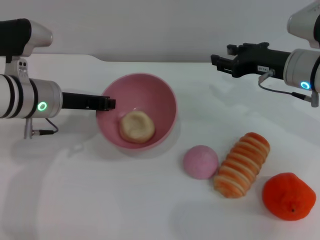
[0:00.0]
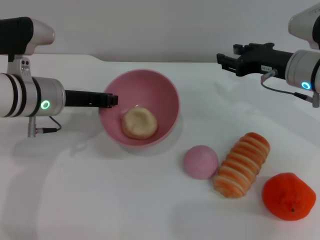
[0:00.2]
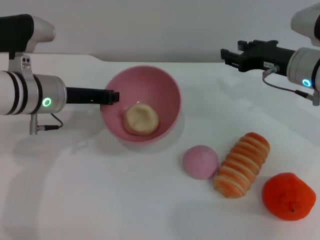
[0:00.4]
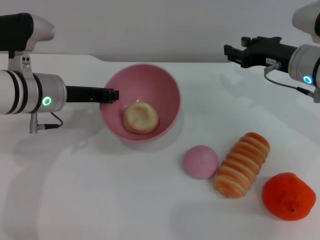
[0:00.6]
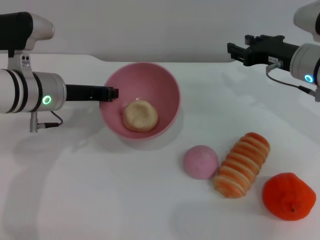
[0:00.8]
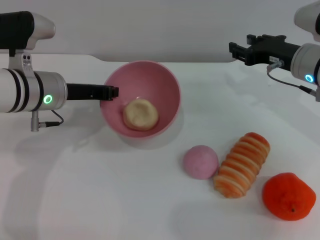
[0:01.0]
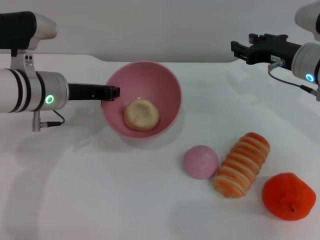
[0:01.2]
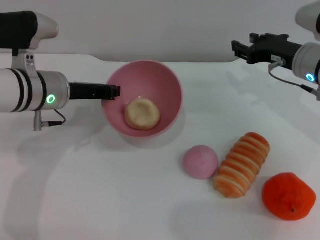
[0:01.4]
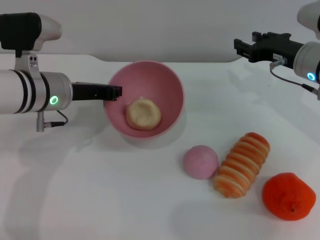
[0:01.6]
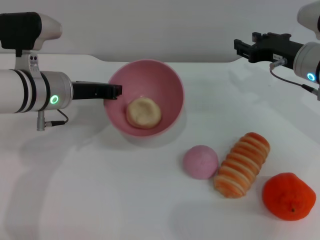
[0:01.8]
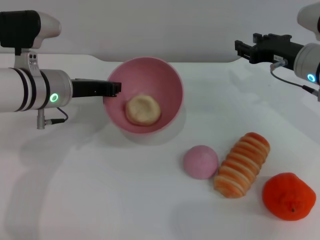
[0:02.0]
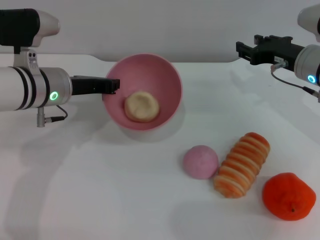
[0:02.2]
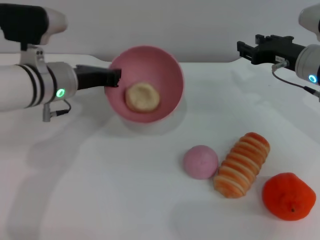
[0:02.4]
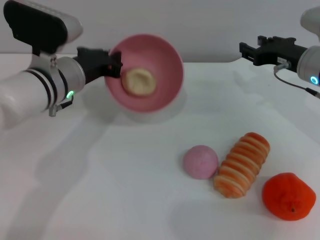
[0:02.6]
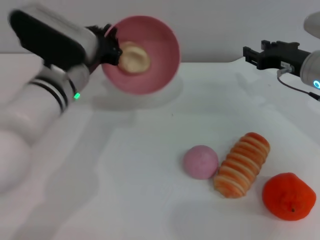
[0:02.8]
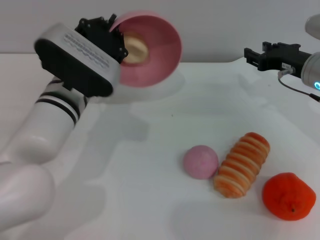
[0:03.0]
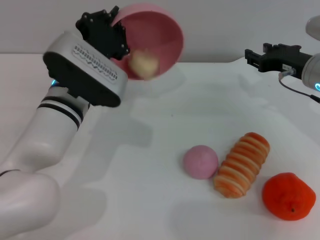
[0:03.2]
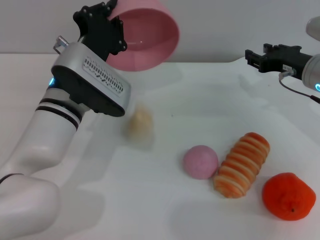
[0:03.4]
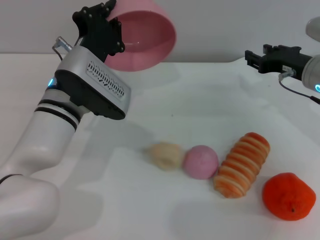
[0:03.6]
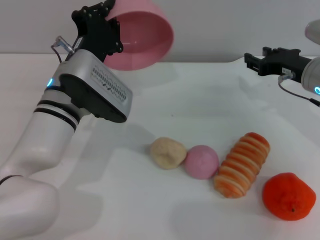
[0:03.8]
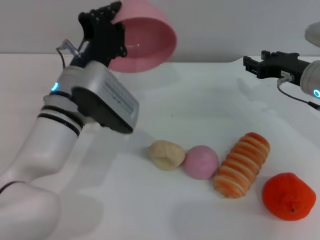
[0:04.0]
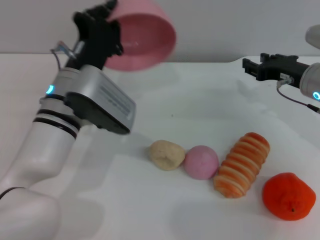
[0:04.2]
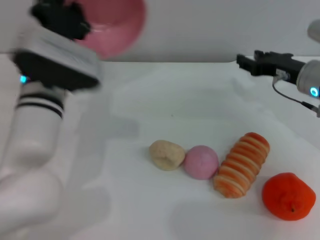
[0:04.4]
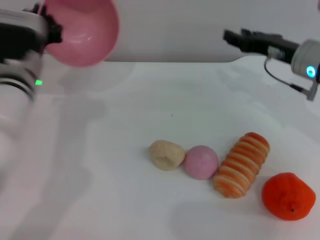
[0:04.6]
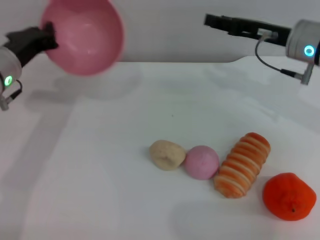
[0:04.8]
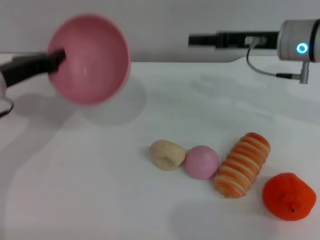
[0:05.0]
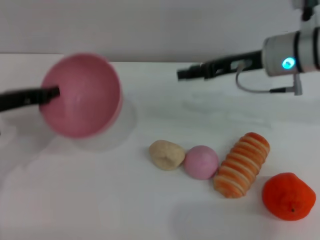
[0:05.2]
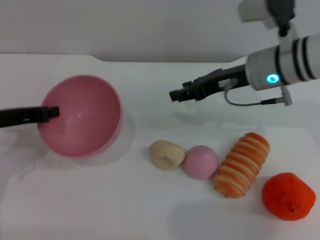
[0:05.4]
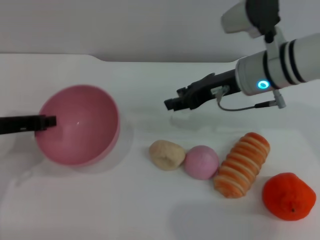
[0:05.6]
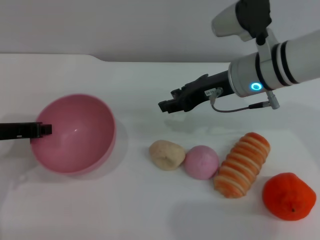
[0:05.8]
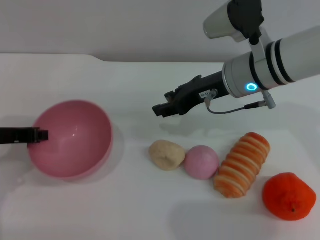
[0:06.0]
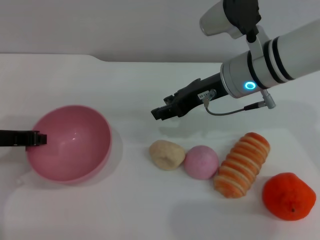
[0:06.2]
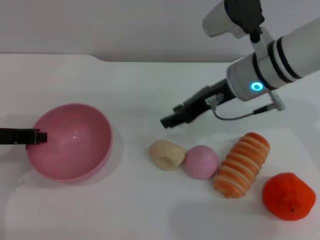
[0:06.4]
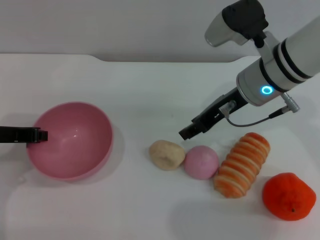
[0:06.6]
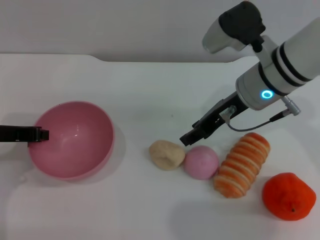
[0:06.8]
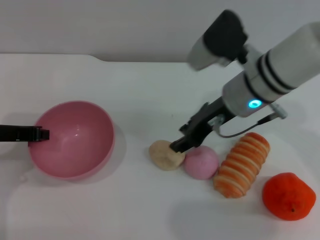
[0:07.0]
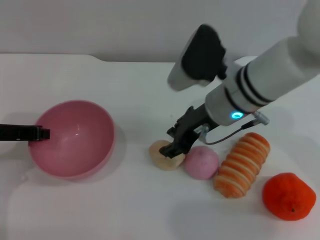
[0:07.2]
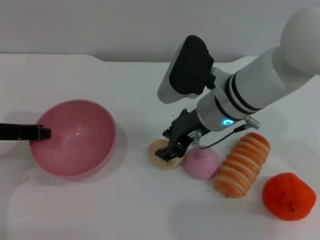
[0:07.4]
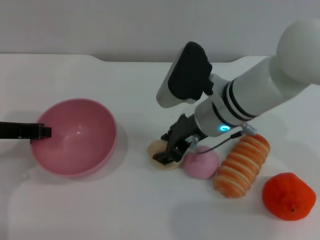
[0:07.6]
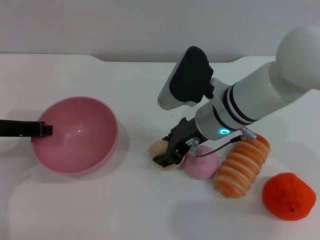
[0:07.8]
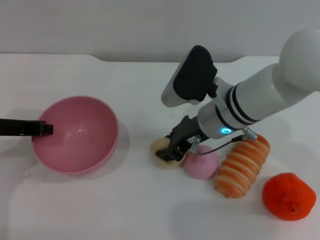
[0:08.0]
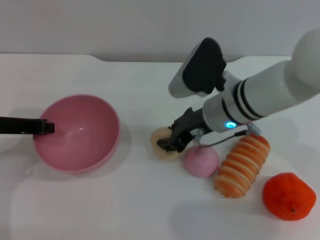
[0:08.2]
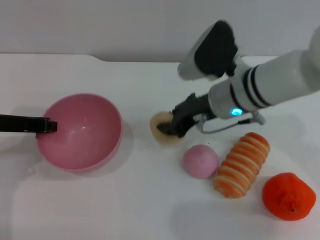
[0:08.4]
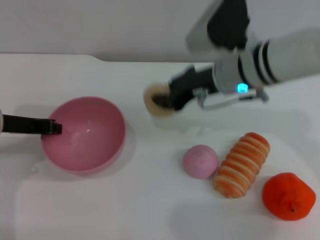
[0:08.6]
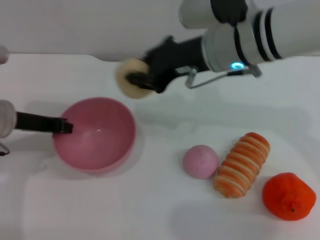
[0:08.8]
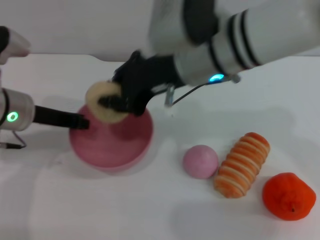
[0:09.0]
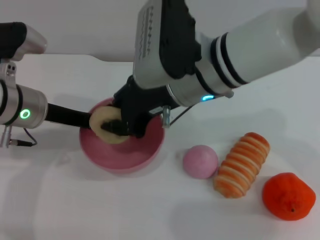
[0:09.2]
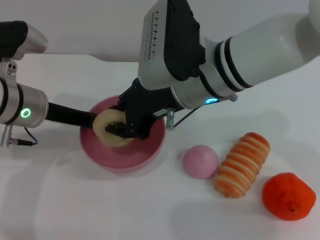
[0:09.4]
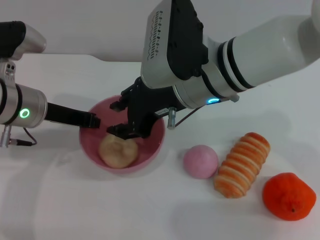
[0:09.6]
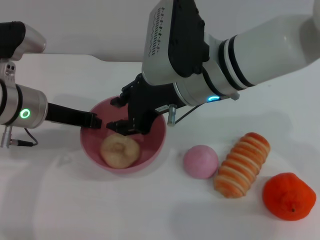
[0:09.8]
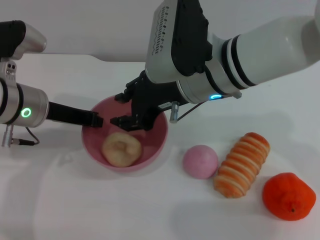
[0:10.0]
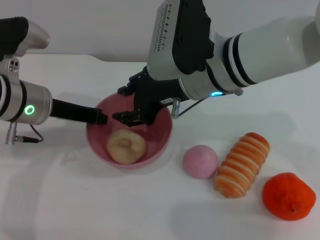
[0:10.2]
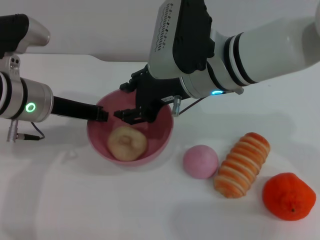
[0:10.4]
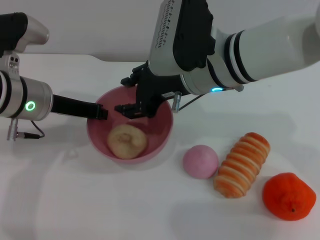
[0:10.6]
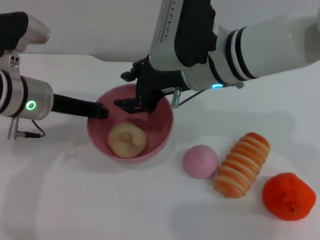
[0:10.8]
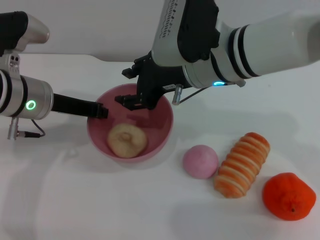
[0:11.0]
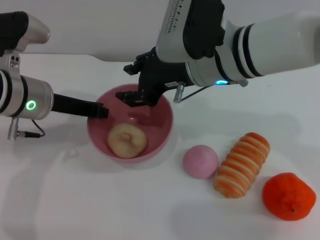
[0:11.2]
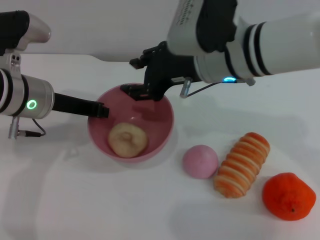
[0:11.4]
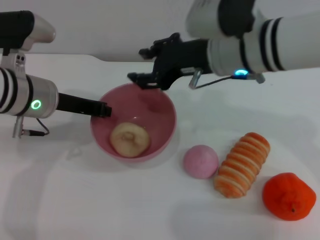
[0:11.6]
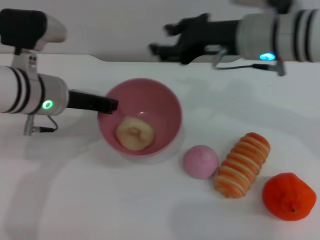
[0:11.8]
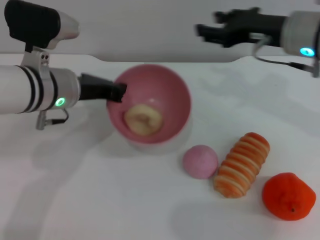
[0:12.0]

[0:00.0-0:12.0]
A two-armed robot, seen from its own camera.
Task of the whole recording: put the egg yolk pastry into the pink bowl and pour it out repeatedly.
Step, 0:00.0 to 0:03.6: Pour the egg yolk pastry out of bowl.
Step, 0:03.8 to 0:08.4: Pick up the egg yolk pastry with the right gripper.
Step, 0:08.6 to 0:10.2: Place the egg yolk pastry into the bowl.
0:00.0 to 0:01.6: The grippers stay close to where they were, moving slightly.
0:01.6 to 0:03.0: The left gripper goes roughly 5 cm to the right.
0:04.4 to 0:06.0: The left gripper moves to the left, about 15 cm, while the right gripper travels to the left and upward by approximately 15 cm.
0:06.0 to 0:07.6: The right gripper moves roughly 5 cm.
0:07.6 to 0:09.0: The right gripper goes about 10 cm upward, and closes up; the left gripper moves to the right, roughly 5 cm.
0:09.0 to 0:10.4: The right gripper opens up.
0:10.4 to 0:12.0: The right gripper travels to the right by some 15 cm.

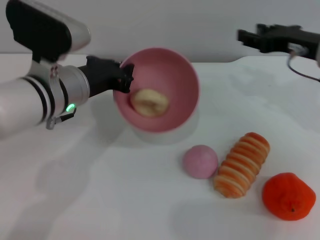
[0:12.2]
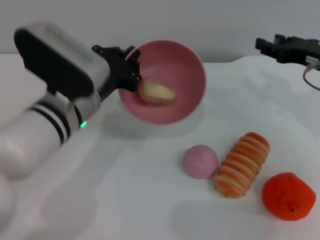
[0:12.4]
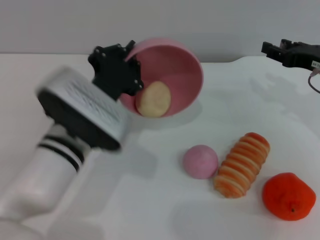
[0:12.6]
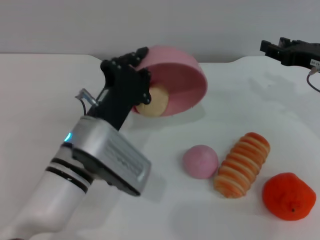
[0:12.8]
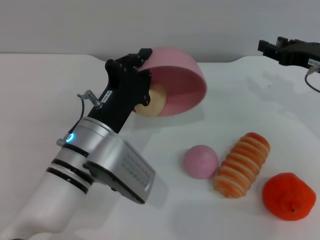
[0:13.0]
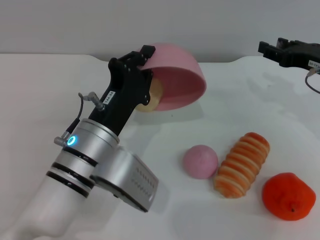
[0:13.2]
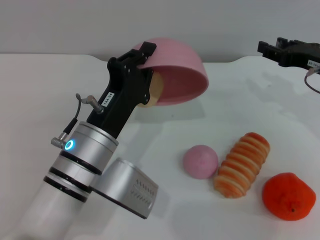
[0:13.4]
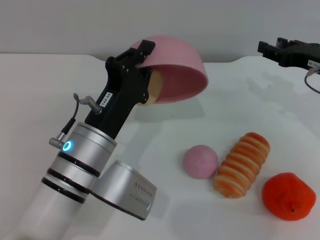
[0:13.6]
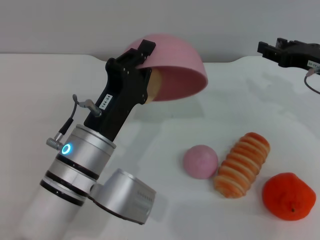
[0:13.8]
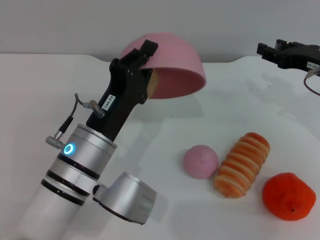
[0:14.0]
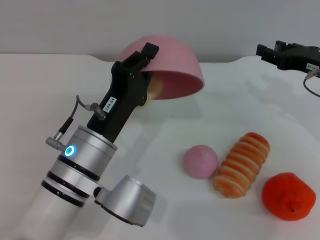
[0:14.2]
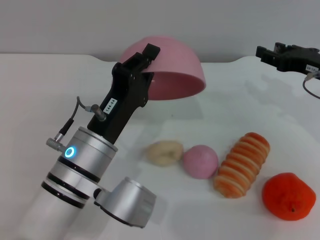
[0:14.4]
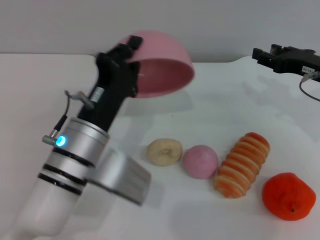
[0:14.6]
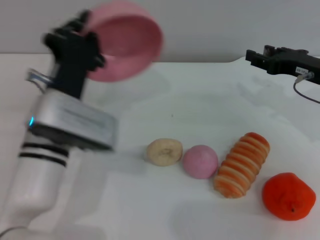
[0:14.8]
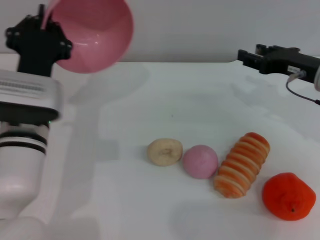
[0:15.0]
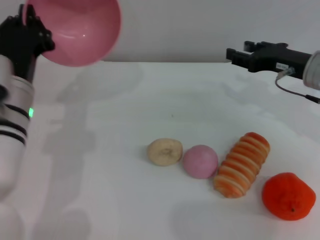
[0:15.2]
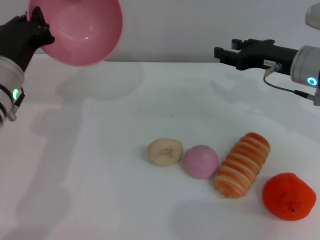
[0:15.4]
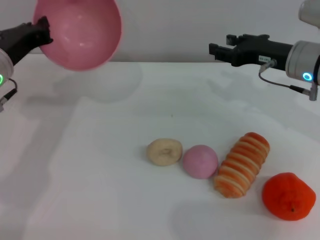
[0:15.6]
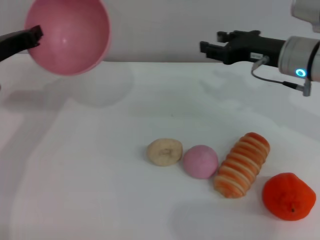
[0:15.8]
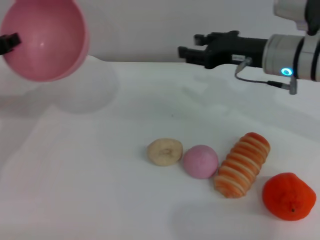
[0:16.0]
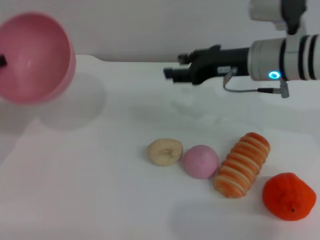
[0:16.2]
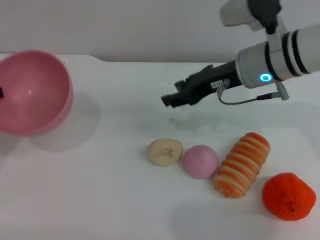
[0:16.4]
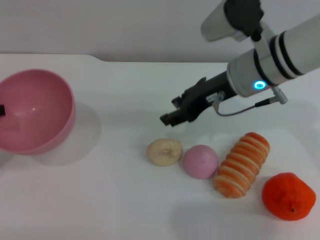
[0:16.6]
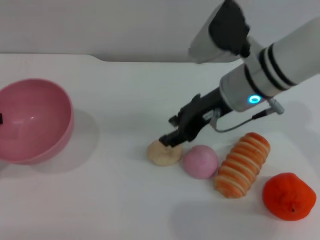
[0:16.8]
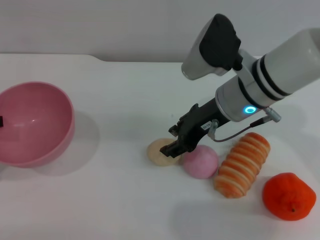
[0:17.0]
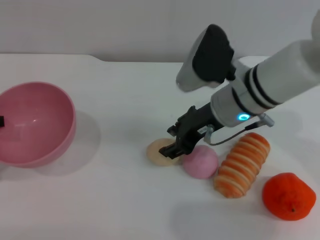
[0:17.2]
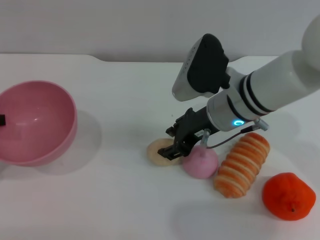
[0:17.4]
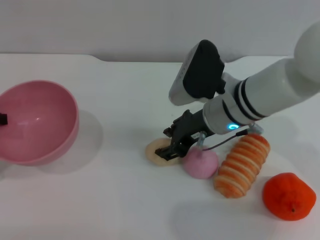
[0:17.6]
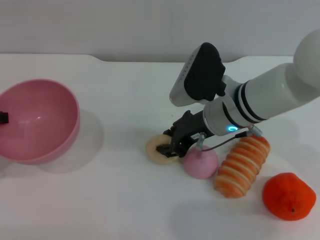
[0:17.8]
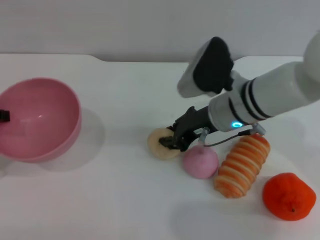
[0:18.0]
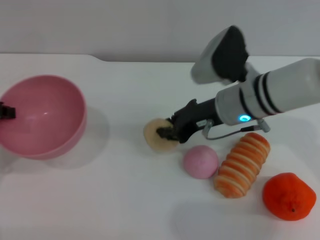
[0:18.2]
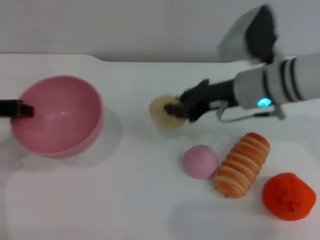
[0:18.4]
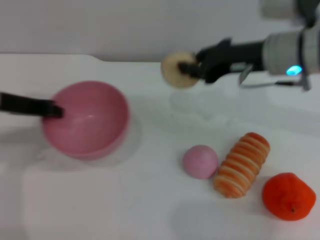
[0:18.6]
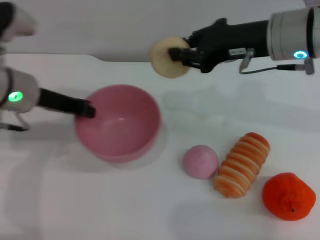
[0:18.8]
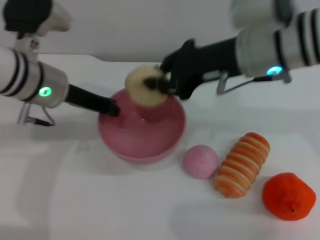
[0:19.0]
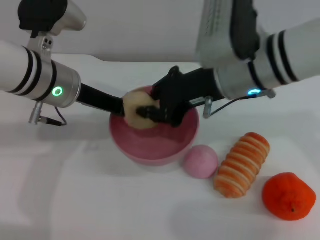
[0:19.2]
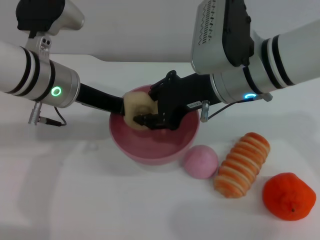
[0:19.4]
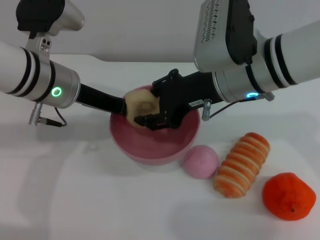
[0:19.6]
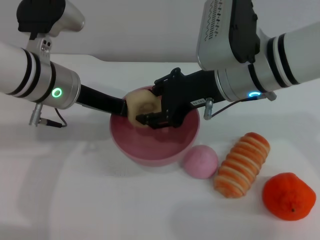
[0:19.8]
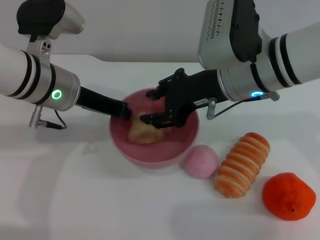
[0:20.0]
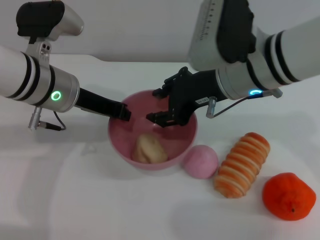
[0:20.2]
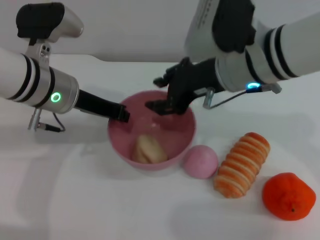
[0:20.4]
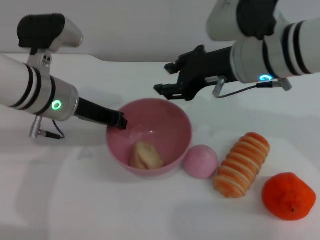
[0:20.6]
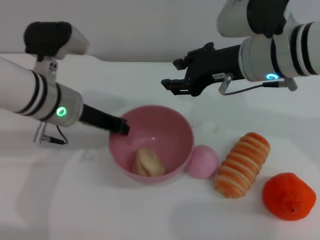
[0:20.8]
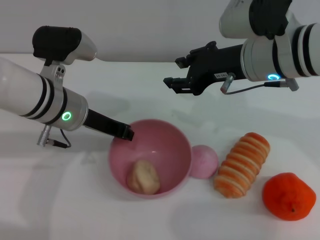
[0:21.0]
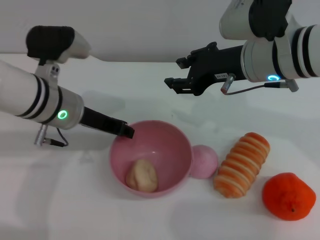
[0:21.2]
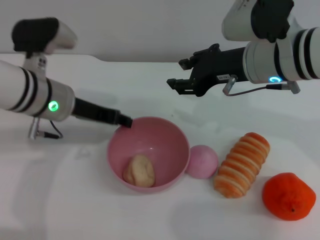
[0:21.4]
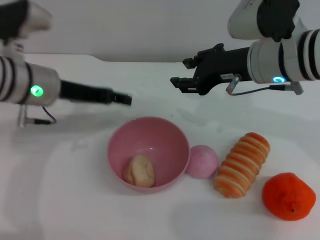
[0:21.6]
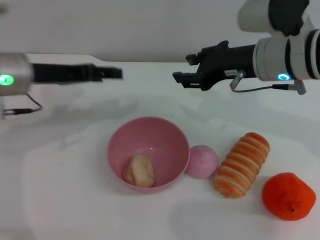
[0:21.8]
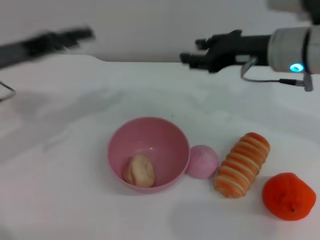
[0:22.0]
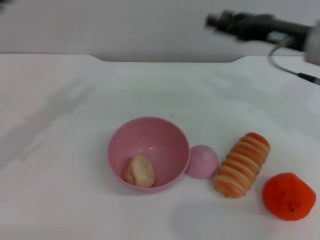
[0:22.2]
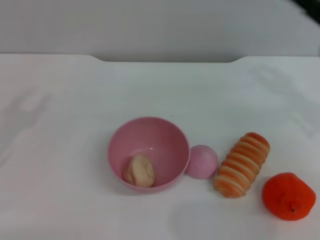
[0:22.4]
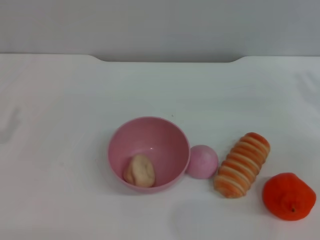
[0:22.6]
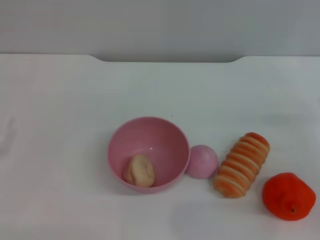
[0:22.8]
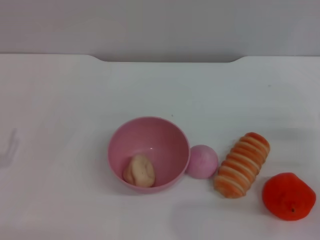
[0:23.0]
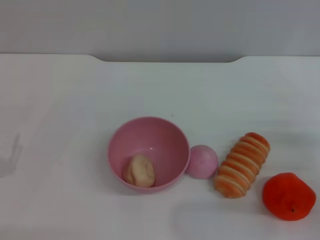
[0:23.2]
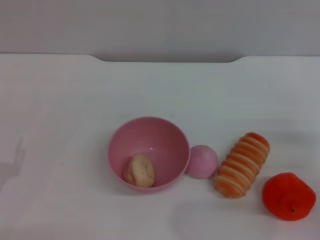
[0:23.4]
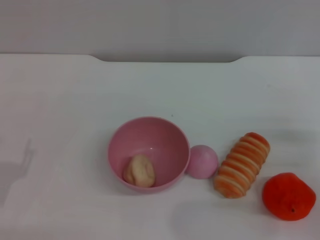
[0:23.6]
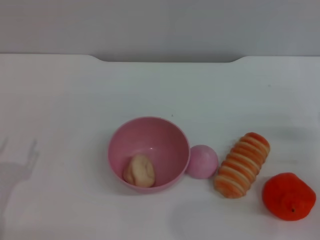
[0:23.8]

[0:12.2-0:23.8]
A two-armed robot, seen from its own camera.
Task of the whole recording: put the egg yolk pastry into the pink bowl and pour it out repeatedly.
Step, 0:12.2 to 0:14.4: Pour the egg yolk pastry out of bowl.
Step, 0:14.8 to 0:18.4: Pick up the egg yolk pastry with the right gripper.
Step, 0:18.6 to 0:20.2: Place the egg yolk pastry into the bowl.
Step, 0:20.6 to 0:21.4: Place the bowl on the table.
0:12.2 to 0:13.6: The left gripper shifts some 10 cm backward and downward. The right gripper moves approximately 5 cm.
0:13.6 to 0:15.0: The left gripper moves to the left, roughly 5 cm.
0:15.0 to 0:16.6: The left gripper moves to the left and upward, roughly 20 cm. The right gripper heads to the left, covering some 15 cm.
0:16.6 to 0:18.0: The right gripper heads downward, covering about 5 cm.
0:18.0 to 0:19.4: The left gripper goes approximately 20 cm to the right and forward. The right gripper travels upward by roughly 10 cm, and closes its fingers.
0:19.4 to 0:21.0: The right gripper opens its fingers.
0:21.0 to 0:22.4: The left gripper goes about 25 cm to the left and backward, and opens up; the right gripper goes approximately 15 cm to the right.
0:22.4 to 0:23.8: The left gripper goes about 15 cm downward, backward and to the right. The right gripper shifts approximately 15 cm downward and backward.
